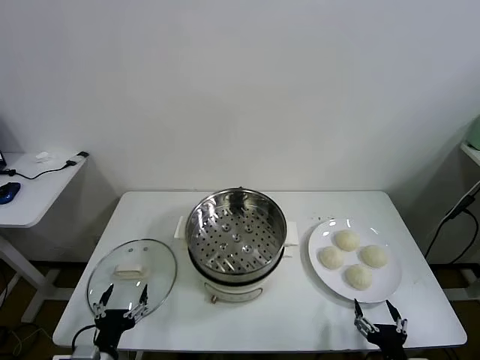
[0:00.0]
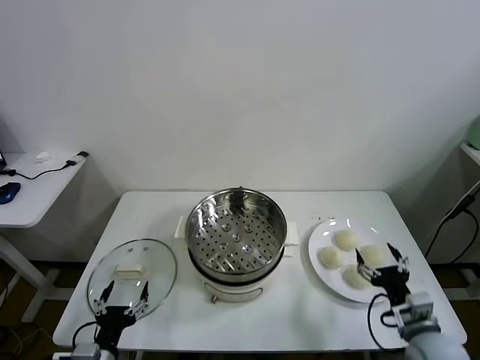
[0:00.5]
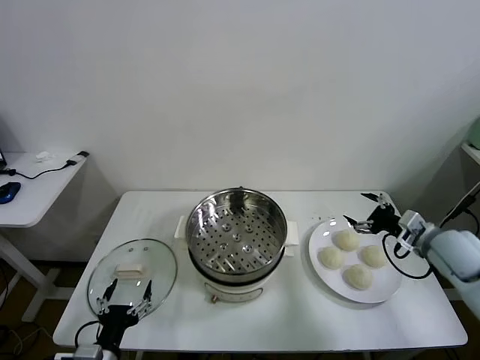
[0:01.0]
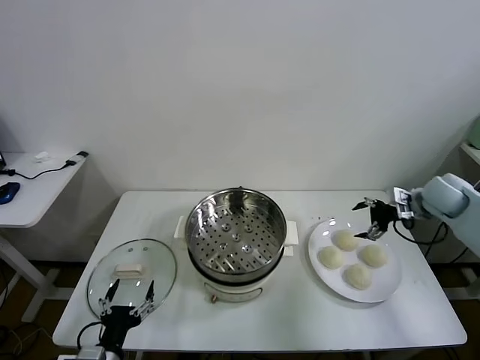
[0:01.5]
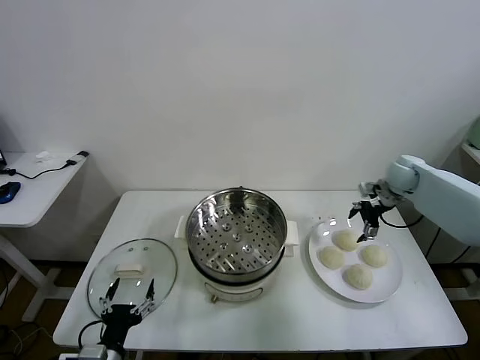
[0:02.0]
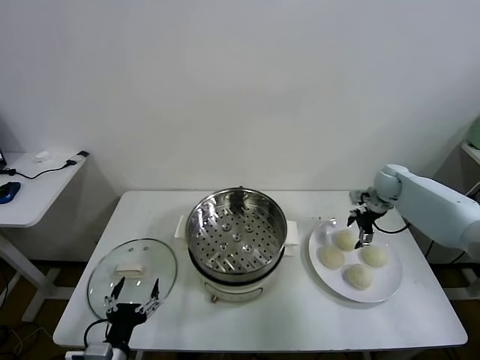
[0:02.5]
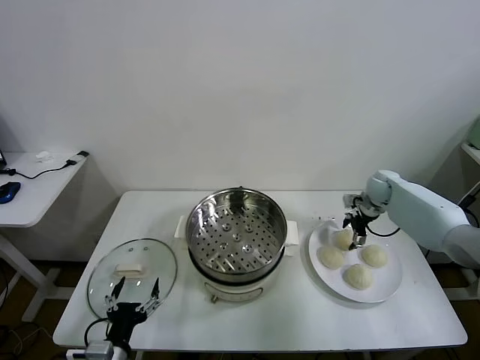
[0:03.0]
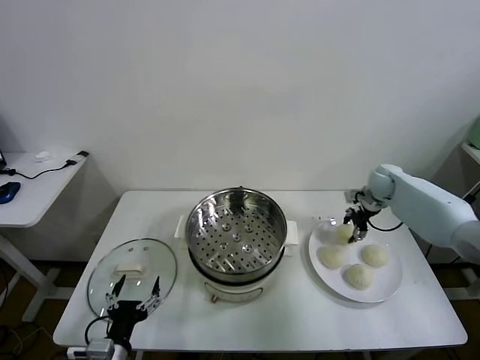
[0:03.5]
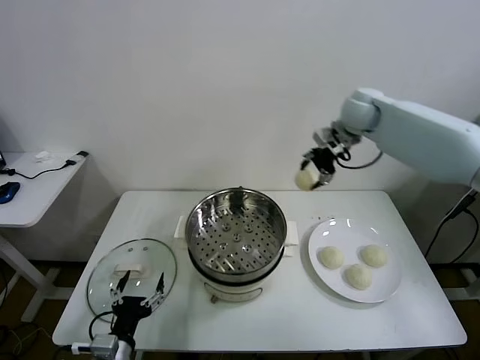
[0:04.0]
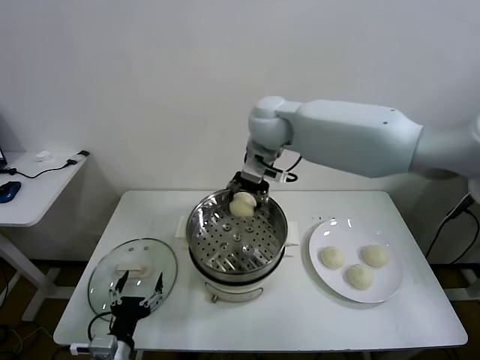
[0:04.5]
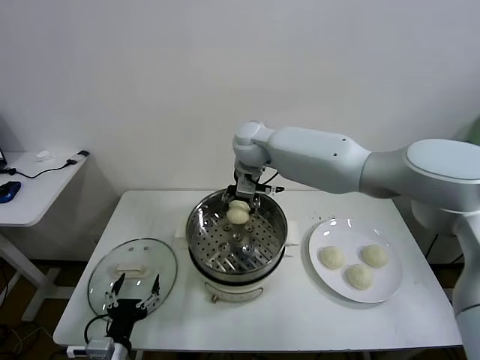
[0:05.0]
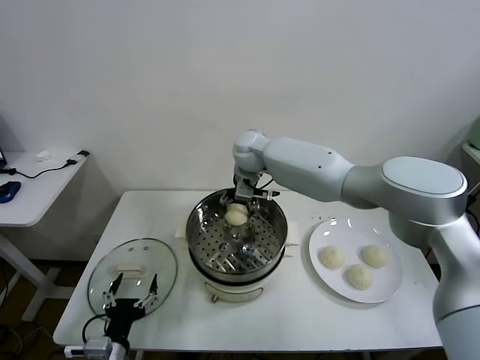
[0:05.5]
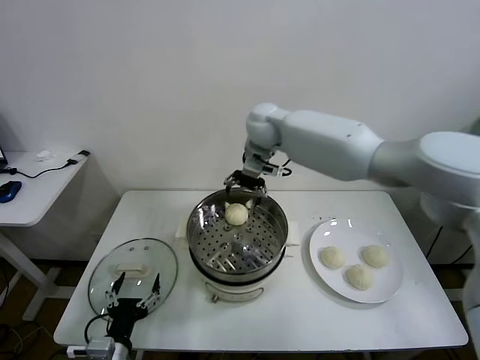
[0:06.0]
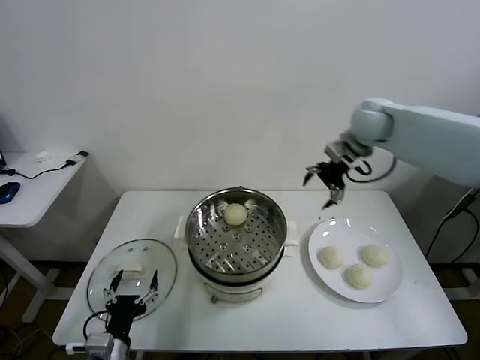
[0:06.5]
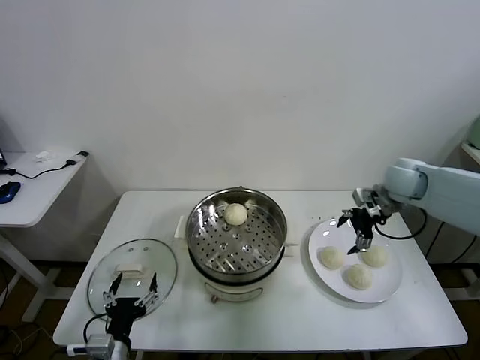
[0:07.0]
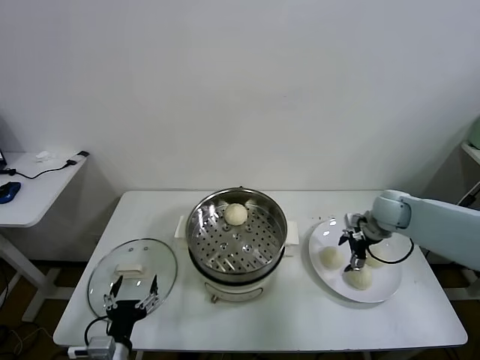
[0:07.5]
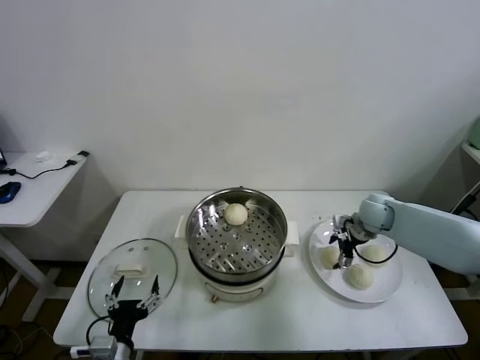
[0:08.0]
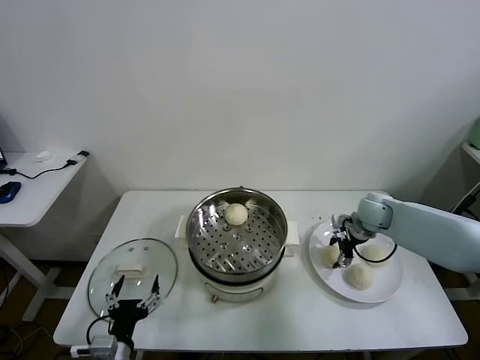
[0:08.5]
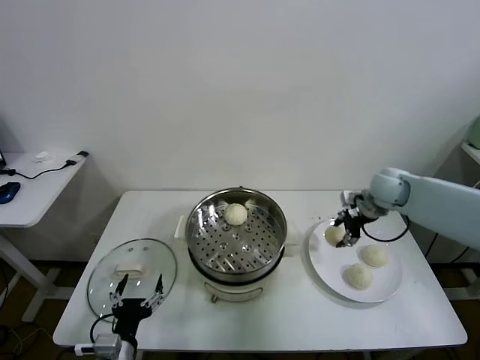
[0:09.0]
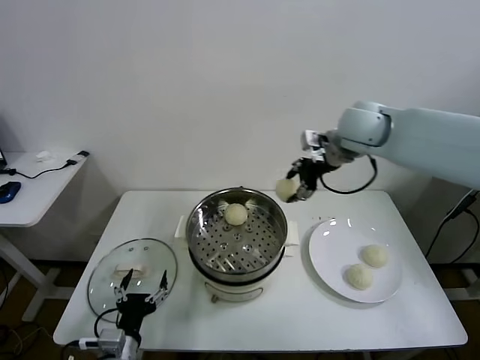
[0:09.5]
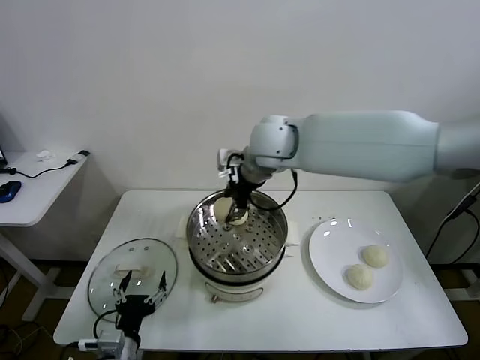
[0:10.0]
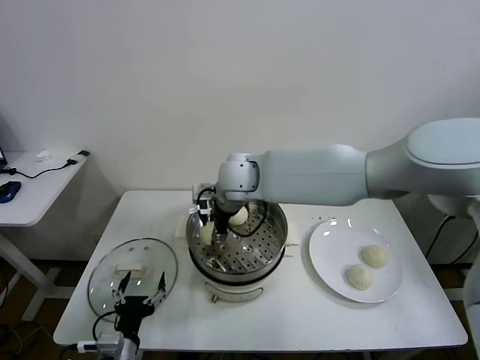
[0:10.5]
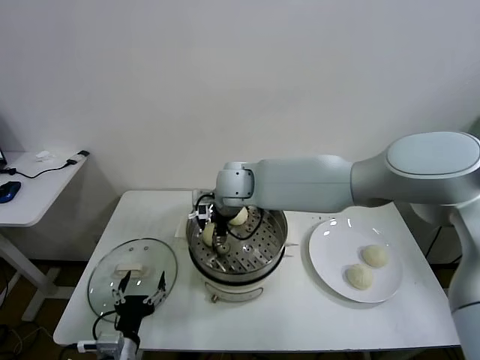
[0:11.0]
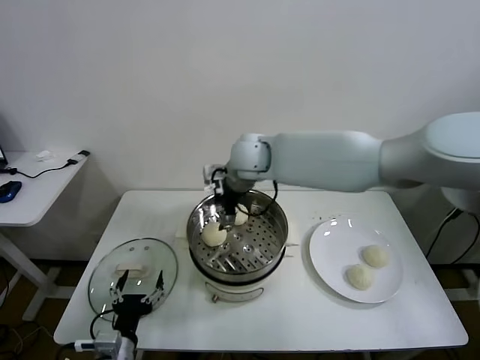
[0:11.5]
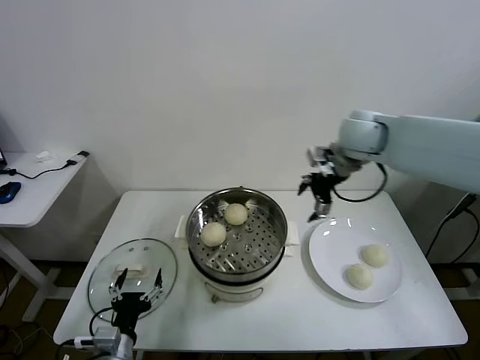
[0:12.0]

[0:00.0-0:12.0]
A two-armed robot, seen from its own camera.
Task of the whole recording: take steamed baozi put them in steamer.
Step, 0:00.0 to 0:03.0: Grasp the baozi in the plate with right gripper.
Step, 0:03.5 to 0:05.5: Place the baozi on the steamer with right gripper.
Step, 0:06.0 to 0:08.5: Grasp the baozi in the plate with right gripper.
Step, 0:09.0 to 0:11.0: Place the baozi on the steamer with right gripper.
0:02.0 to 0:04.0: The right gripper moves to the left and upward, about 30 cm, and closes its fingers.
0:04.0 to 0:06.0: The right gripper travels to the left by some 10 cm, and opens its fingers.
0:06.0 to 0:08.0: The right gripper heads to the right and downward, covering some 35 cm.
0:08.0 to 0:10.0: The right gripper travels to the left and upward by about 40 cm, and closes.
0:10.0 to 0:12.0: The right gripper goes some 25 cm to the right, and opens.

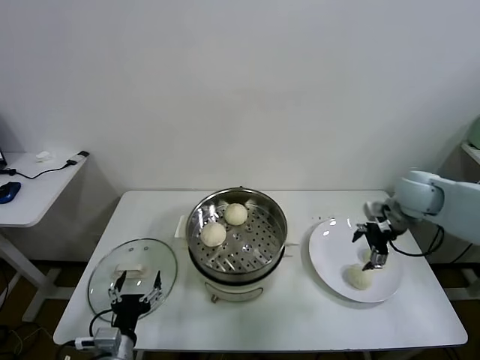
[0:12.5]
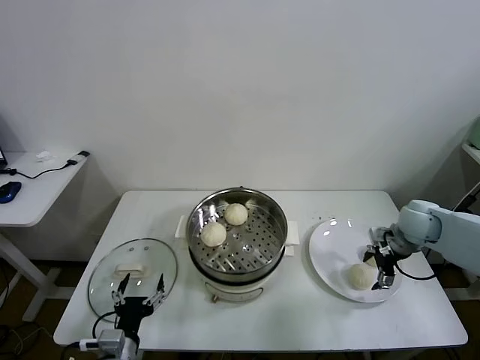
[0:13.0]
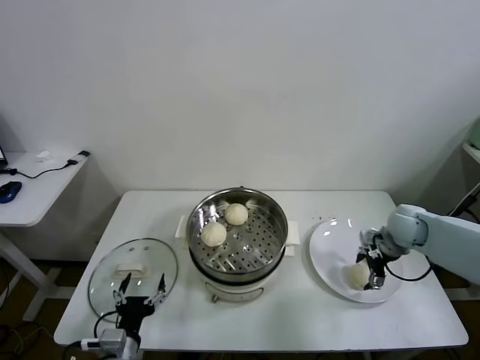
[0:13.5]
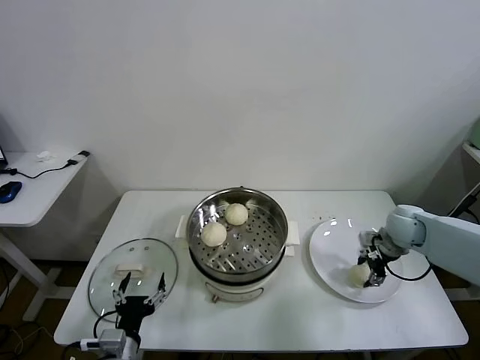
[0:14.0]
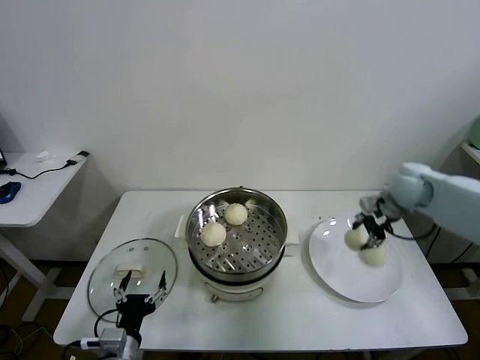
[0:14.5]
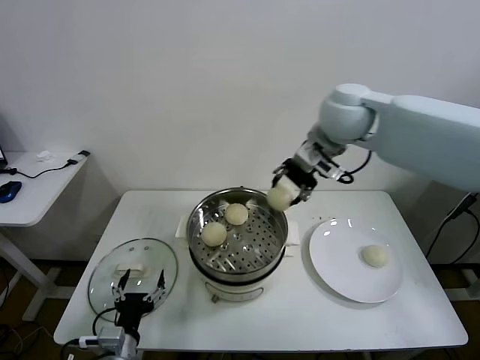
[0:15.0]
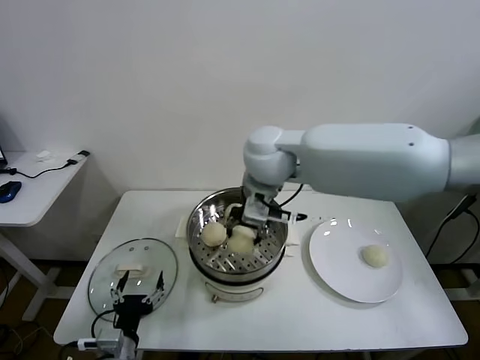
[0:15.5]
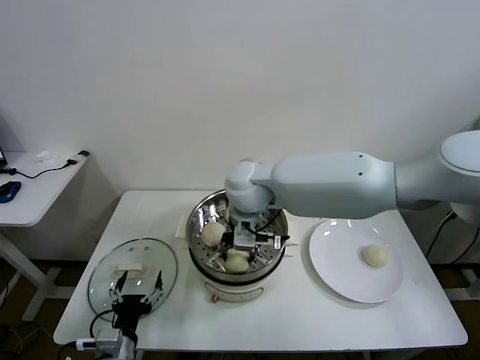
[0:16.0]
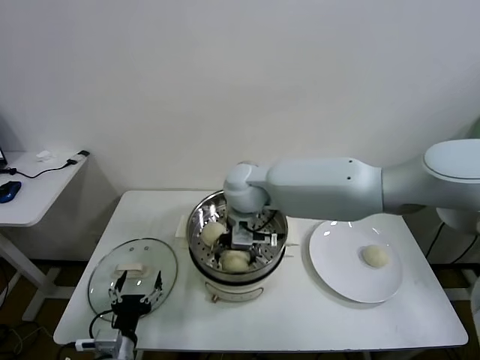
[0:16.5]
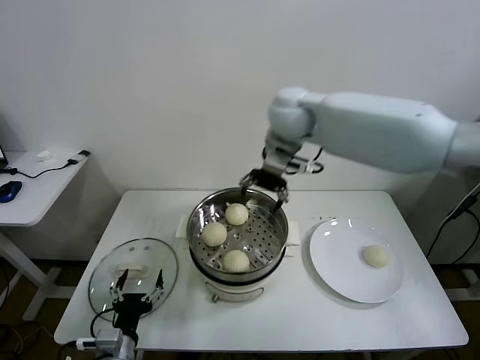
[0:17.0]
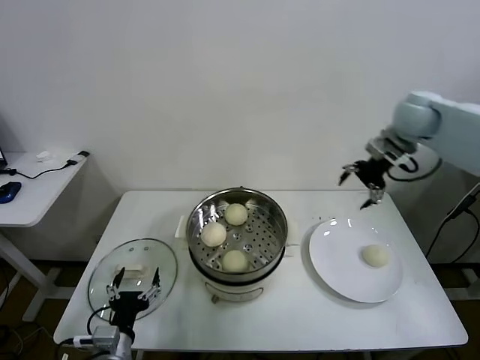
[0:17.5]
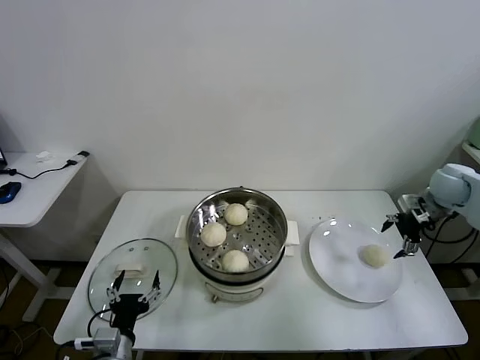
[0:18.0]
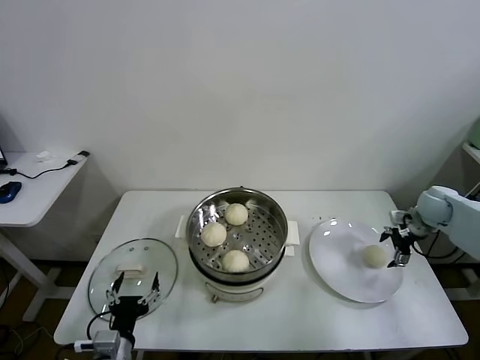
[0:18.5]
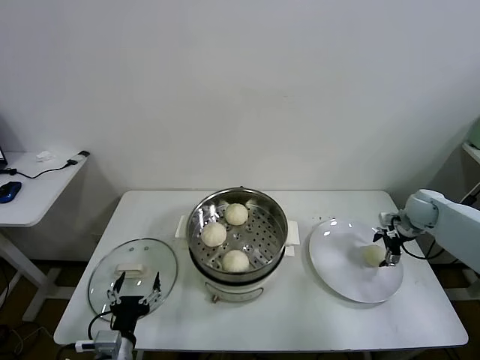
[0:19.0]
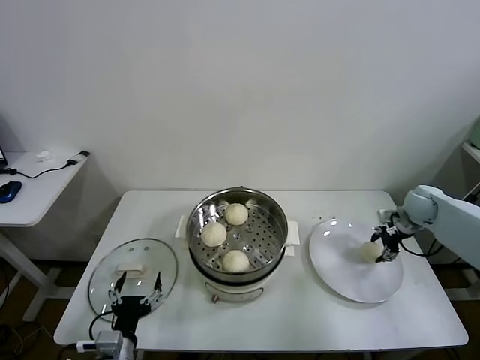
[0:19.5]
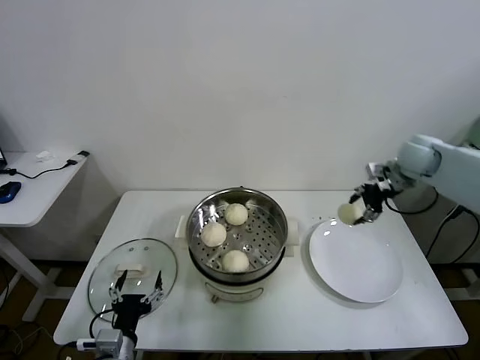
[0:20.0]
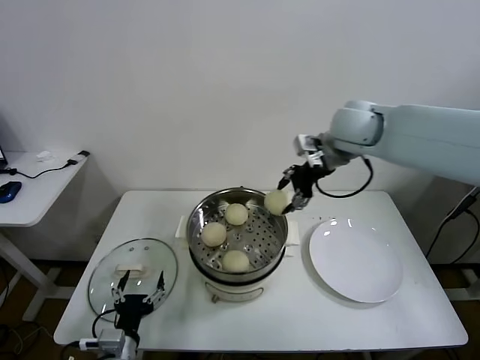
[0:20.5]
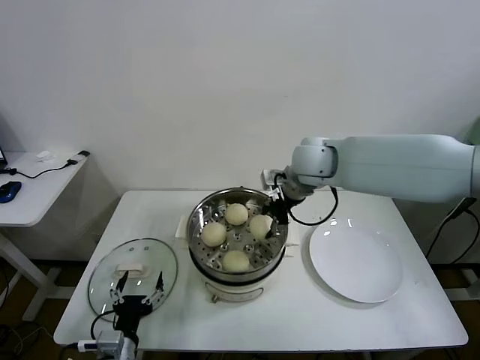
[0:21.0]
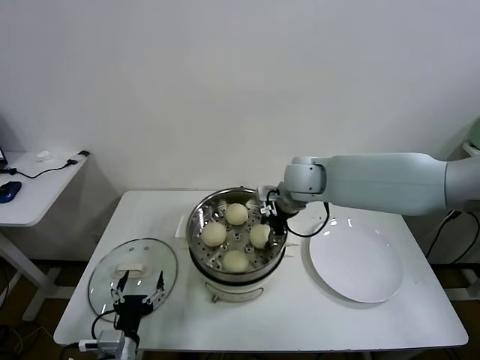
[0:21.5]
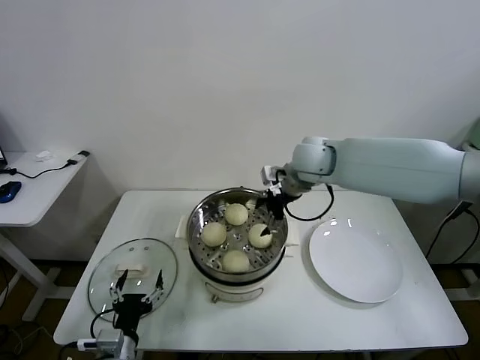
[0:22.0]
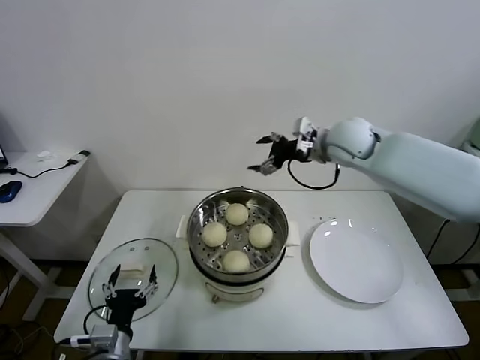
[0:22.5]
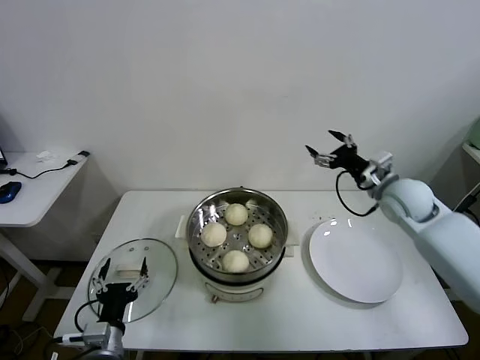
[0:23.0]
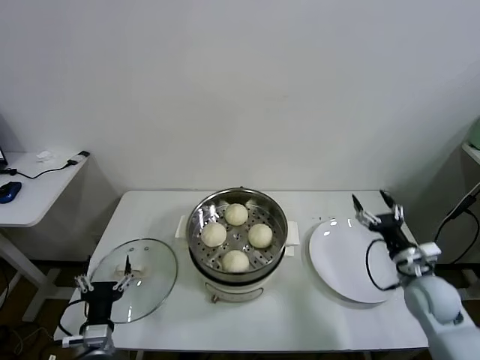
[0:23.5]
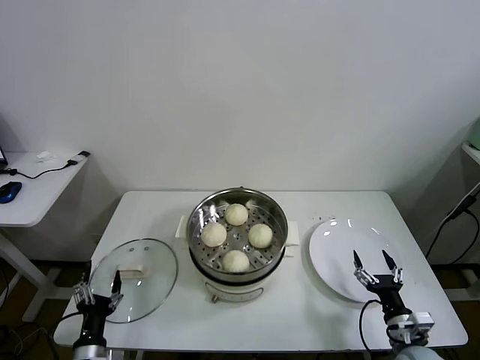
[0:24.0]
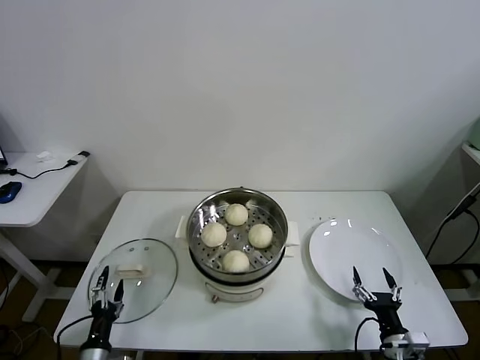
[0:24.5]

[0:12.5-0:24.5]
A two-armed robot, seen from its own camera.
Task of the whole recording: take steamed baozi put them in steamer.
Step, 0:14.5 to 0:16.5: Place the baozi on the steamer with right gripper.
Step, 0:17.0 to 0:19.0: Grasp the baozi in the plate with right gripper.
Step, 0:19.5 to 0:21.5: Place the baozi on the steamer with right gripper.
0:12.5 to 0:14.5: The right gripper travels upward by roughly 5 cm, and closes up.
0:14.5 to 0:16.5: The right gripper heads to the left, covering some 35 cm, and opens its fingers.
0:16.5 to 0:18.5: The right gripper travels to the right by about 50 cm.
0:18.5 to 0:20.5: The right gripper is displaced to the left and upward by approximately 35 cm, and closes its fingers.
0:20.5 to 0:22.5: The right gripper opens up.
0:22.5 to 0:24.5: The right gripper moves downward and backward, some 50 cm, while the left gripper is displaced downward and to the left by roughly 15 cm.

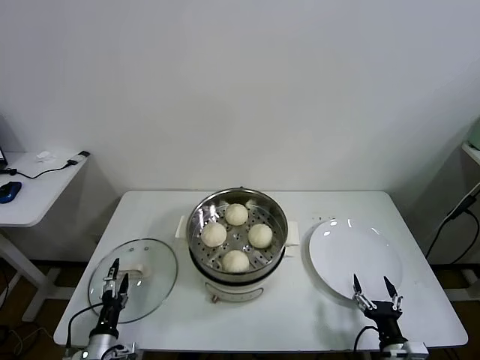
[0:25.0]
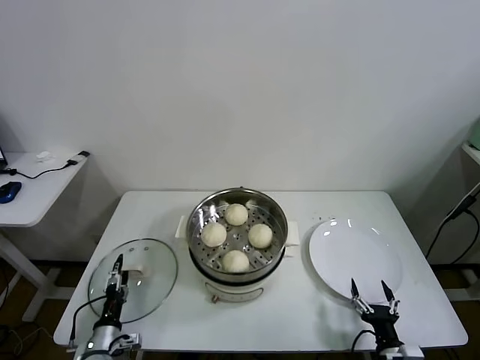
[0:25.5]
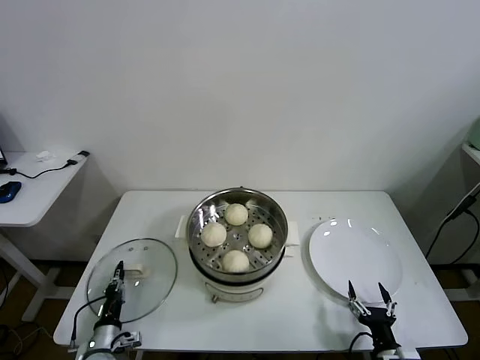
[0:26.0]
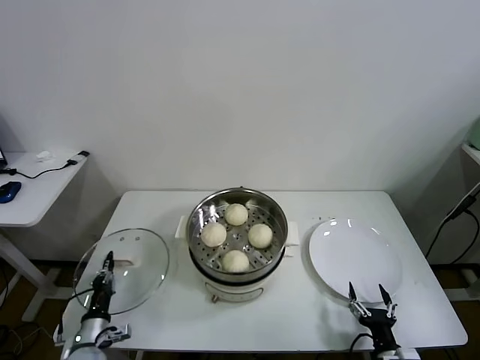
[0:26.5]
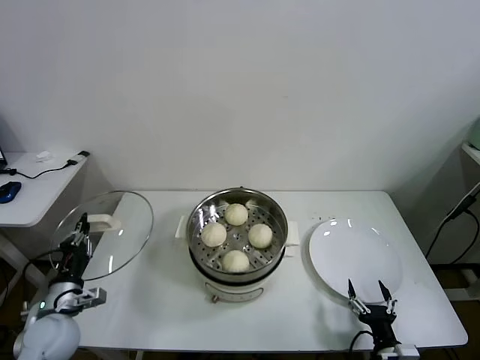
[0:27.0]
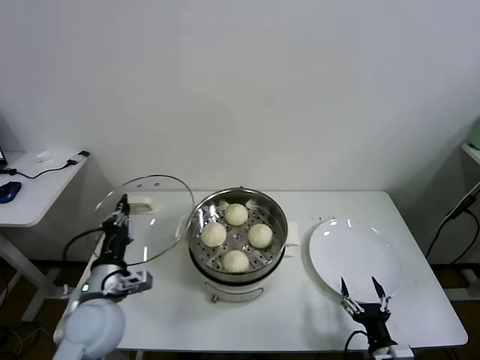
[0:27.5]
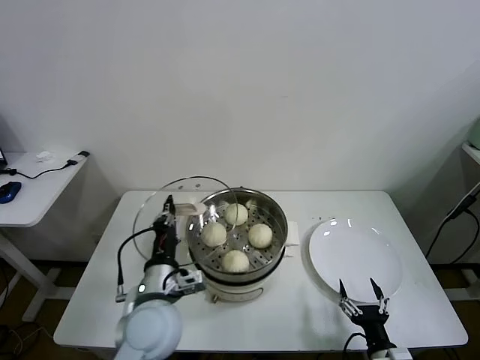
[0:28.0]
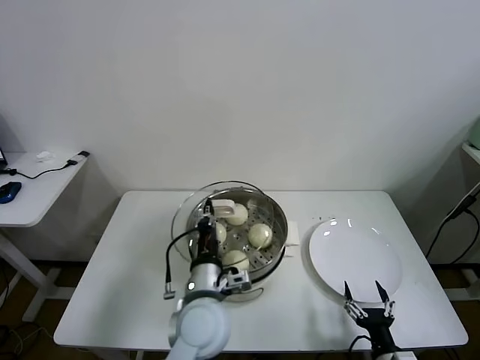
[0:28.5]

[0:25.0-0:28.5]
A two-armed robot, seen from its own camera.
Task of the whole recording: take steamed baozi put them in steamer.
0:25.0 to 0:27.0: The left gripper is displaced upward and forward by roughly 15 cm, and closes.
0:27.0 to 0:28.5: The left gripper is displaced to the right by about 30 cm.
